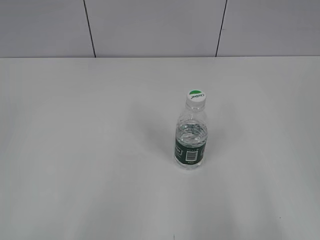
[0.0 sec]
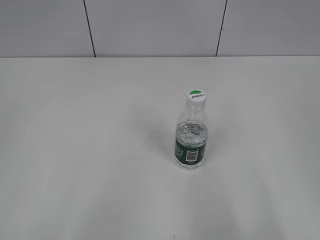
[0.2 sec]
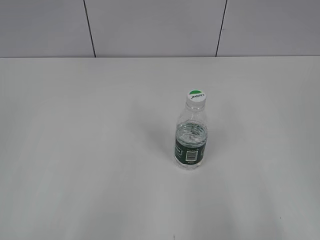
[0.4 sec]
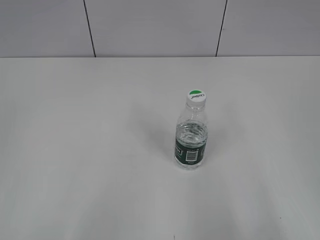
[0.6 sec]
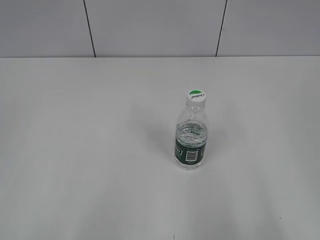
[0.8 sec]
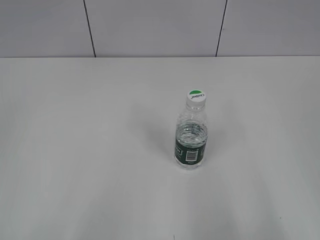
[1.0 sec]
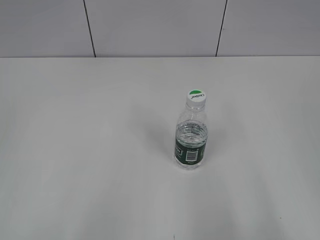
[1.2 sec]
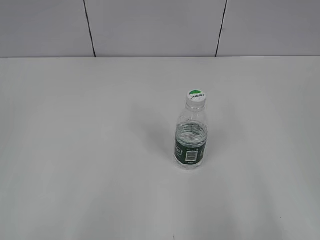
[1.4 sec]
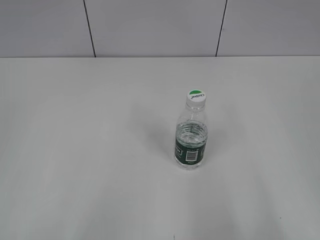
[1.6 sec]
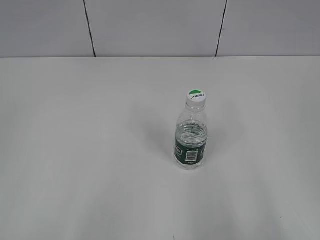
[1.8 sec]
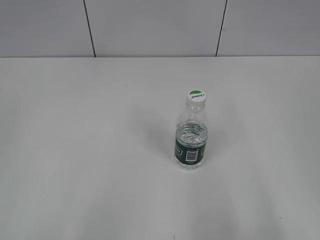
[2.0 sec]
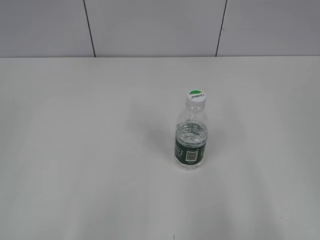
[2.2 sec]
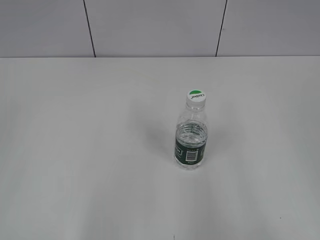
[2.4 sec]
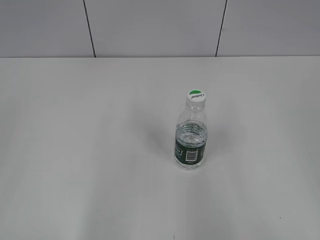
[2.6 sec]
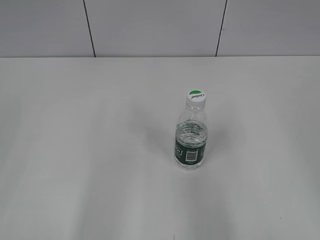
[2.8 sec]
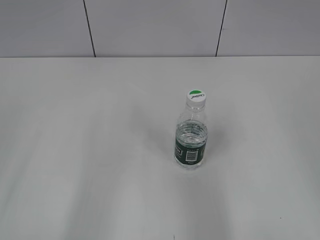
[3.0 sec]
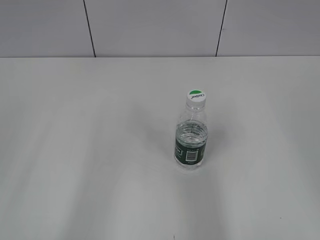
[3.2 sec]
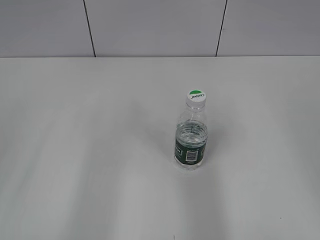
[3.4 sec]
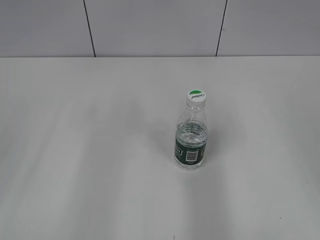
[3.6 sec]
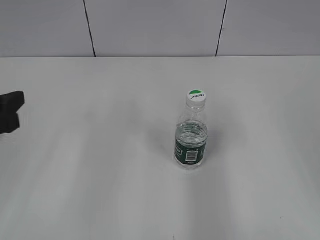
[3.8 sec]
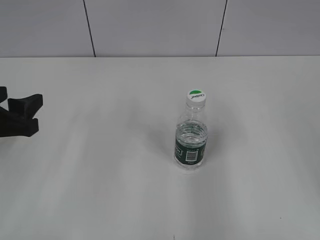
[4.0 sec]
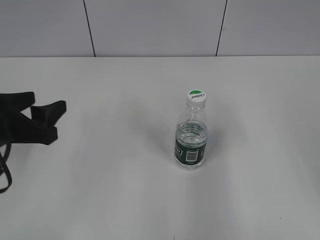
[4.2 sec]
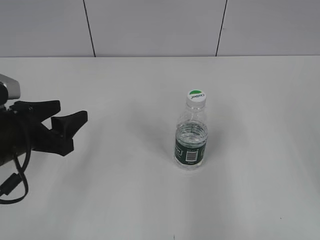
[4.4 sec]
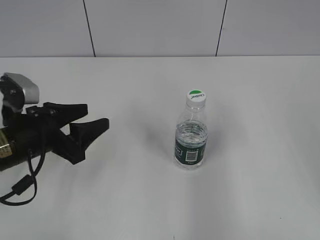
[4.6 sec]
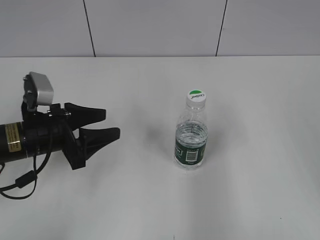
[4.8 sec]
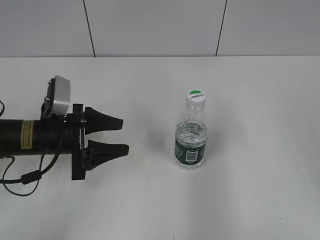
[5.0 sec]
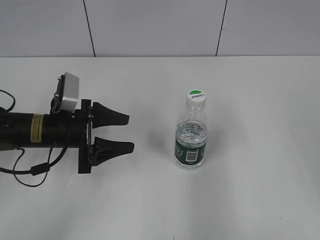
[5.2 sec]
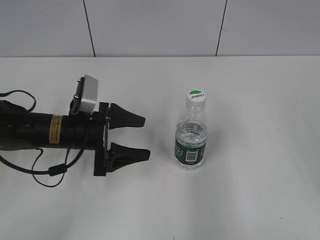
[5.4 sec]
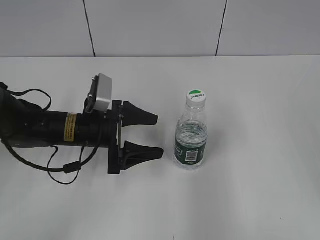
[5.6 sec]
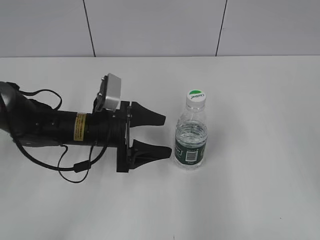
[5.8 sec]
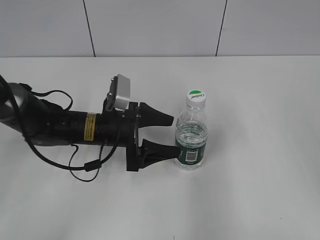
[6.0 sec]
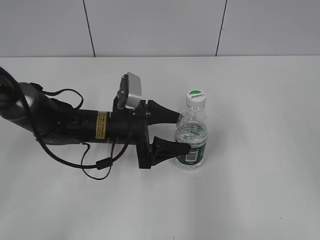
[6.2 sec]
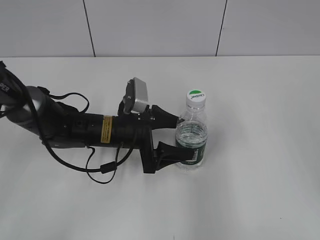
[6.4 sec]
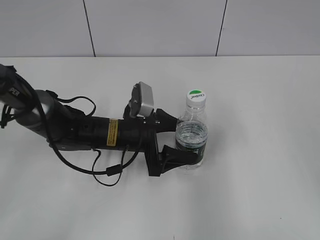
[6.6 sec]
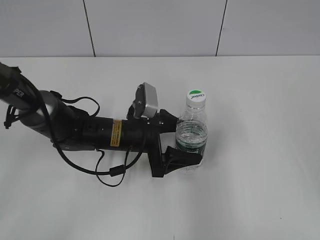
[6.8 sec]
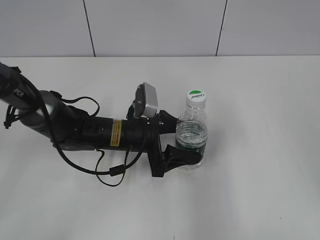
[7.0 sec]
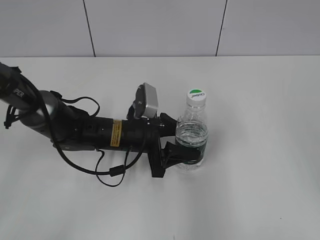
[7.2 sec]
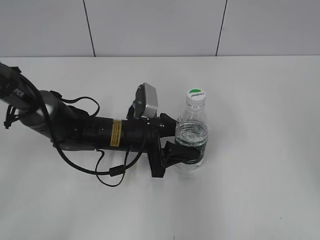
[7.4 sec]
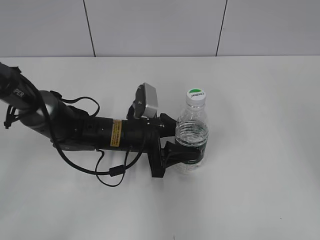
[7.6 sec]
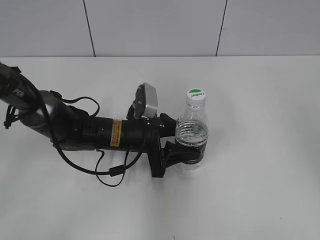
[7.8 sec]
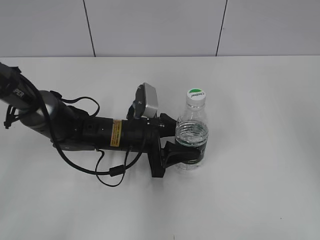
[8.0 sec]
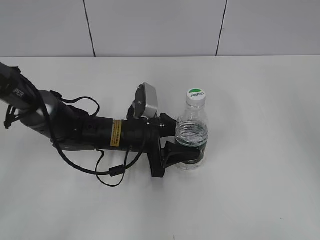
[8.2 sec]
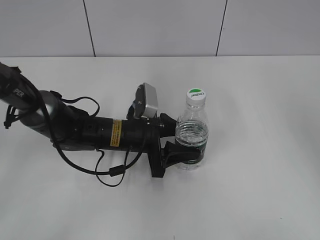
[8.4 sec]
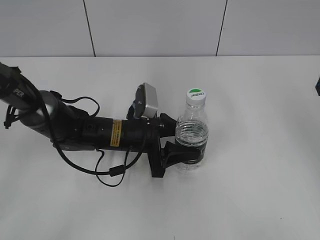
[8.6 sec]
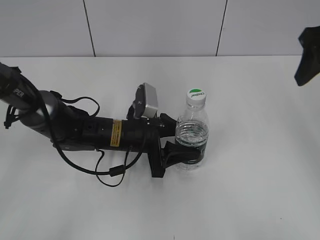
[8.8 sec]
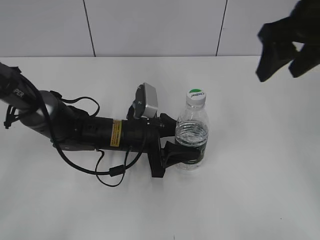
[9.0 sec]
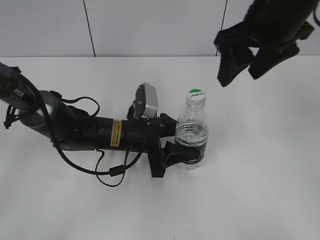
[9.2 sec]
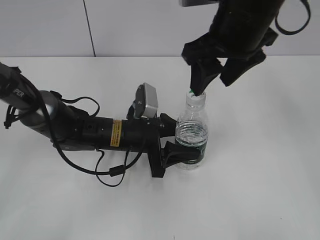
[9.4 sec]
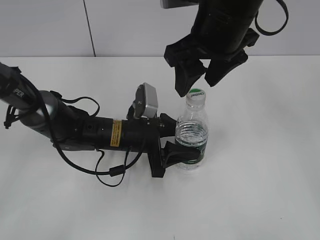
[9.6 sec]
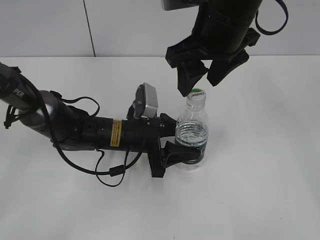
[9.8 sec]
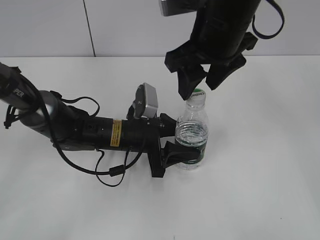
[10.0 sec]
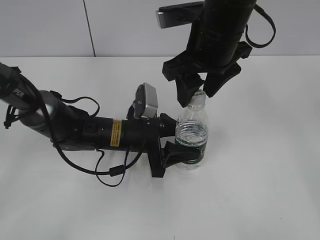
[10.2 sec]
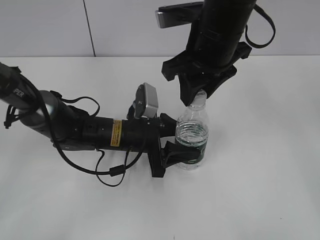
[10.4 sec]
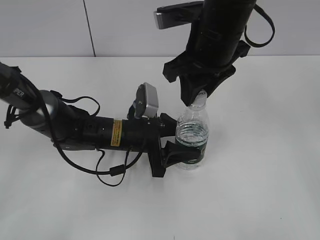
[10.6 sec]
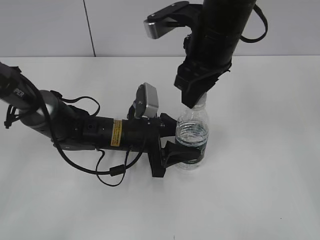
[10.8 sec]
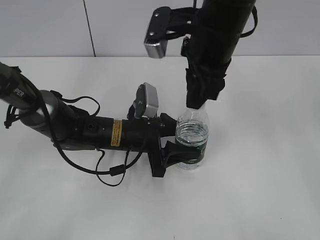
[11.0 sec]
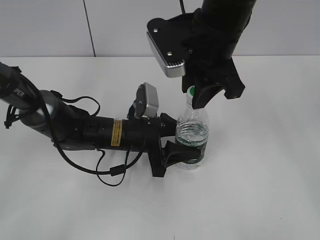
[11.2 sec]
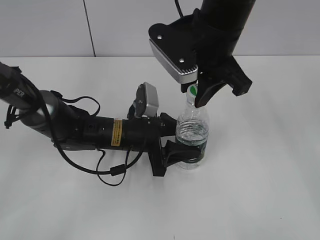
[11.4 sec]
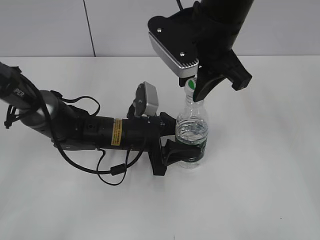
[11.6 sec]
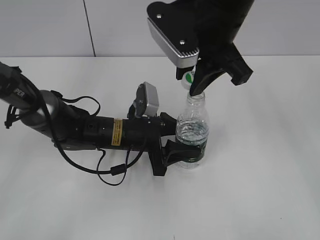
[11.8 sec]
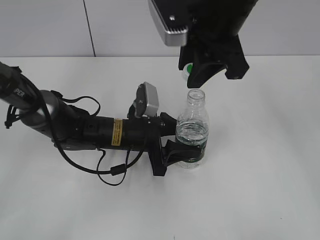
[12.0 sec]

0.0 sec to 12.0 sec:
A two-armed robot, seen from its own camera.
Step, 0.0 sec to 7.4 sec: Grasp the bottle and move it to the center of the table with the left gripper.
Step, 7.8 sec to 11.8 sec: Unscrew the bottle cap with the right gripper while holding the bottle with the left gripper.
3.0 sec to 4.4 sec: The left gripper heads forward, downward and to the right, covering some 20 cm.
4.4 sec to 6.0 sec: The left gripper goes some 15 cm to the right, forward and downward, and opens.
6.0 sec to 7.6 sec: The left gripper closes. Meanwhile the right gripper ends up about 5 cm from where it was.
7.6 sec to 9.0 sec: The right gripper heads forward and to the left, covering roughly 15 cm.
9.0 sec to 10.4 sec: The right gripper shifts roughly 15 cm to the left, and closes.

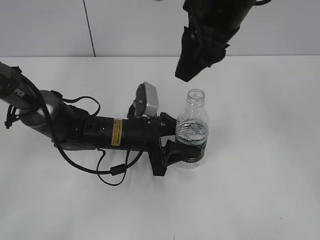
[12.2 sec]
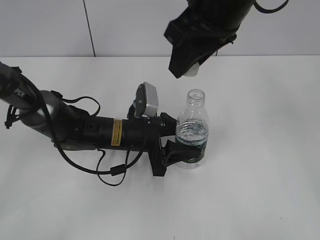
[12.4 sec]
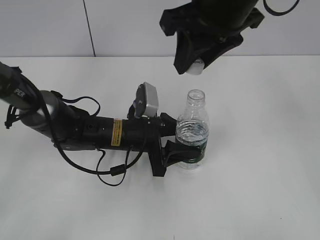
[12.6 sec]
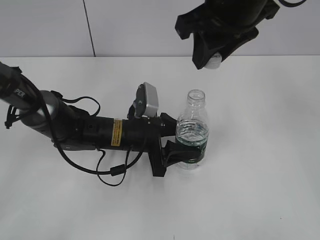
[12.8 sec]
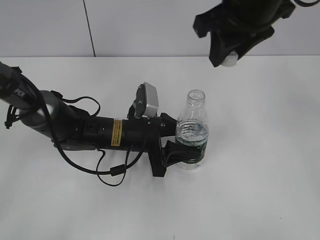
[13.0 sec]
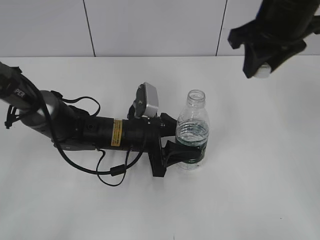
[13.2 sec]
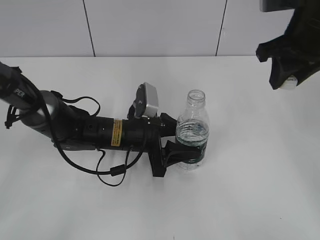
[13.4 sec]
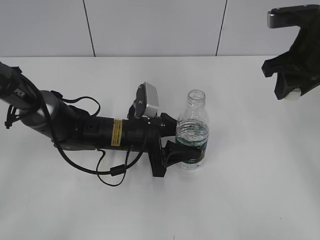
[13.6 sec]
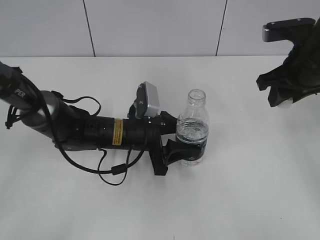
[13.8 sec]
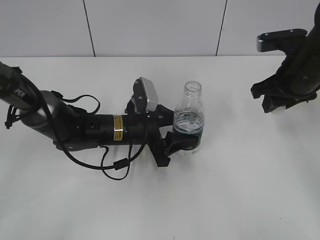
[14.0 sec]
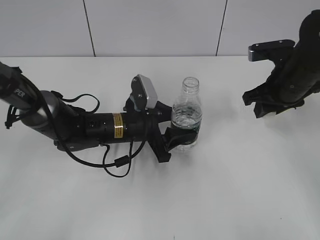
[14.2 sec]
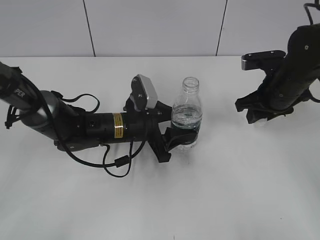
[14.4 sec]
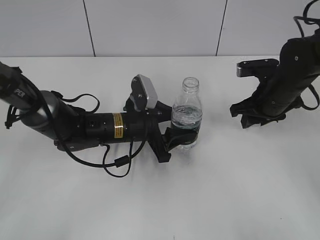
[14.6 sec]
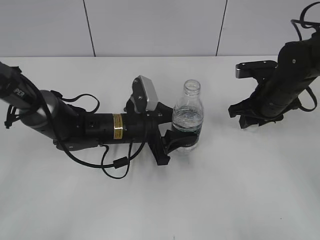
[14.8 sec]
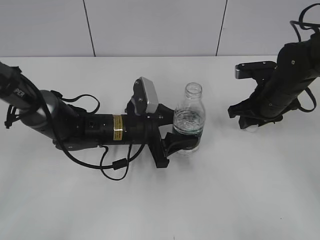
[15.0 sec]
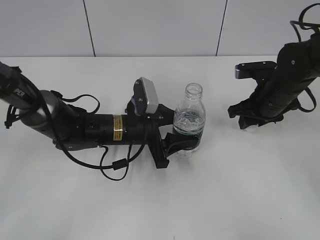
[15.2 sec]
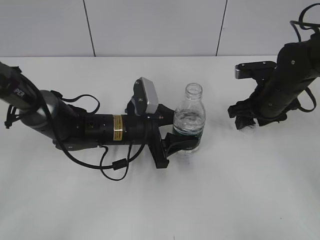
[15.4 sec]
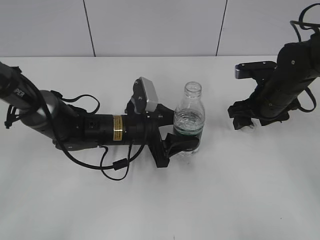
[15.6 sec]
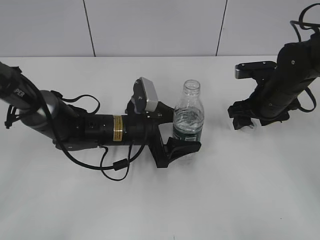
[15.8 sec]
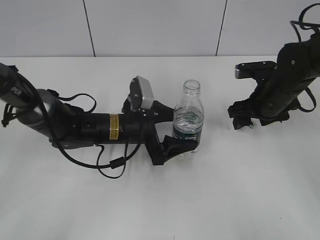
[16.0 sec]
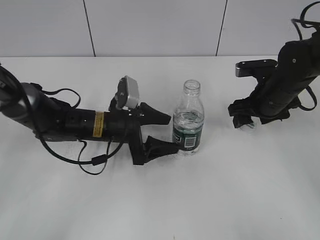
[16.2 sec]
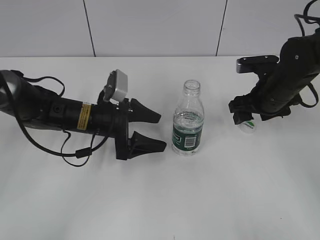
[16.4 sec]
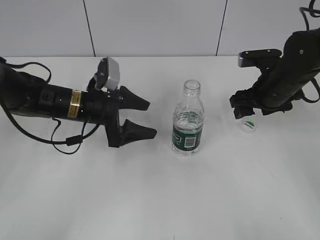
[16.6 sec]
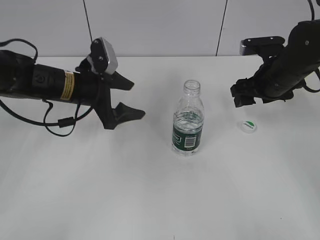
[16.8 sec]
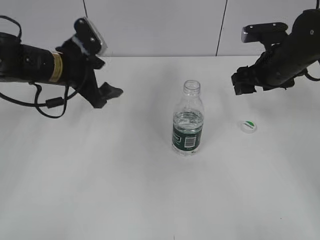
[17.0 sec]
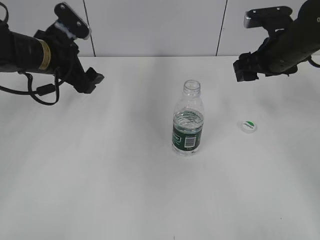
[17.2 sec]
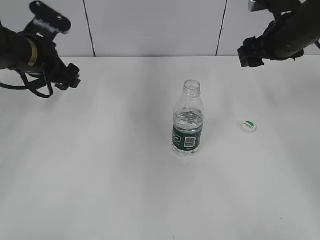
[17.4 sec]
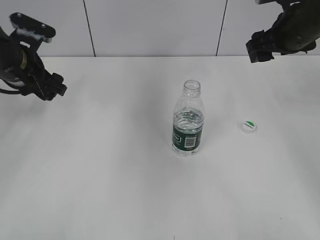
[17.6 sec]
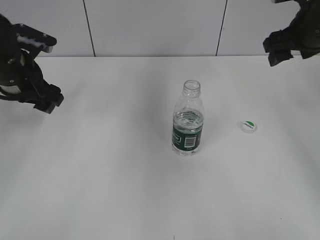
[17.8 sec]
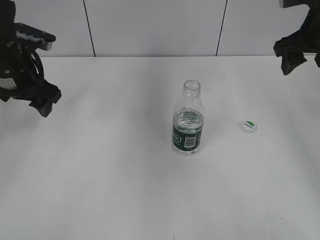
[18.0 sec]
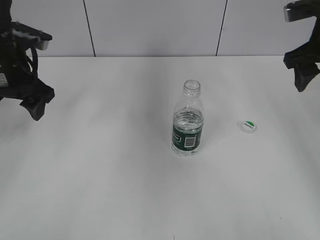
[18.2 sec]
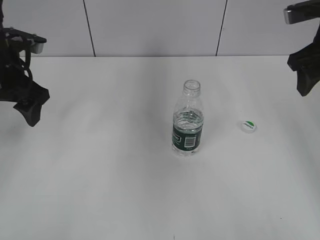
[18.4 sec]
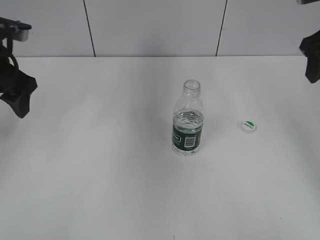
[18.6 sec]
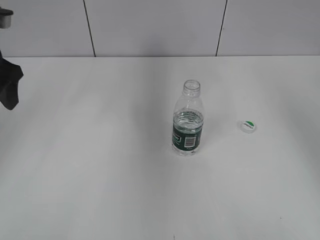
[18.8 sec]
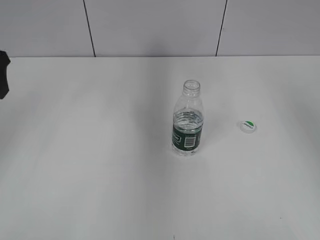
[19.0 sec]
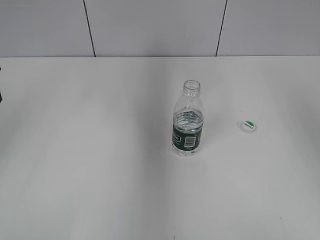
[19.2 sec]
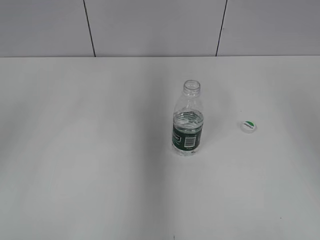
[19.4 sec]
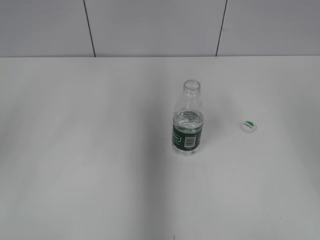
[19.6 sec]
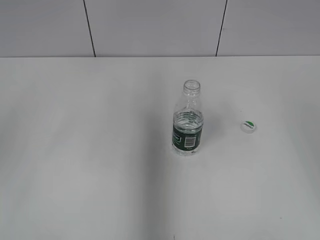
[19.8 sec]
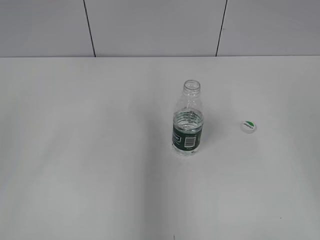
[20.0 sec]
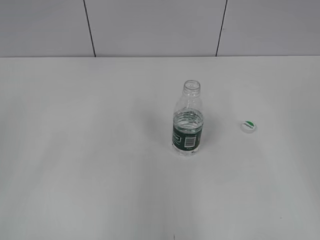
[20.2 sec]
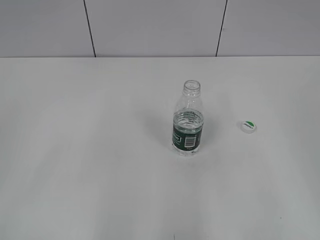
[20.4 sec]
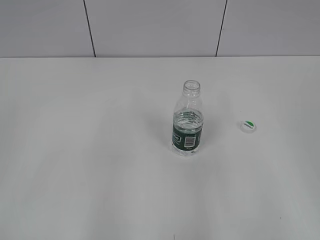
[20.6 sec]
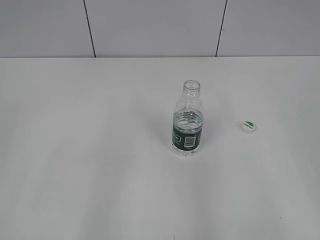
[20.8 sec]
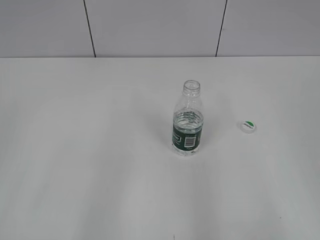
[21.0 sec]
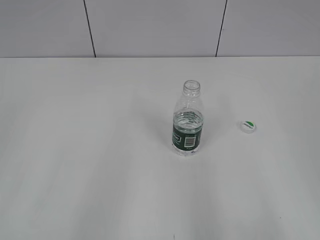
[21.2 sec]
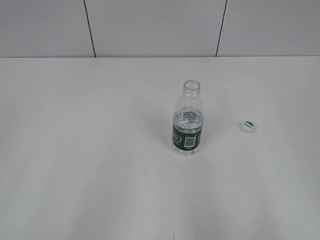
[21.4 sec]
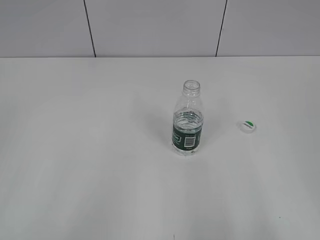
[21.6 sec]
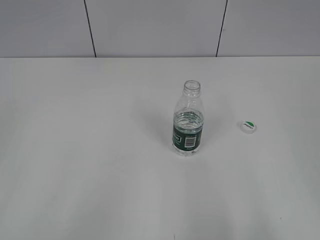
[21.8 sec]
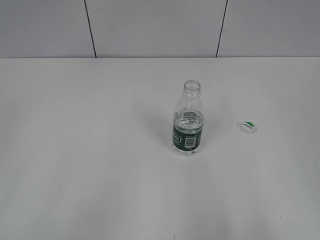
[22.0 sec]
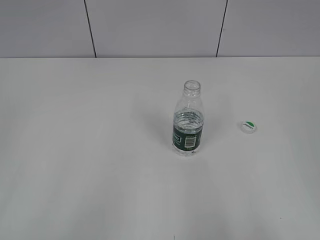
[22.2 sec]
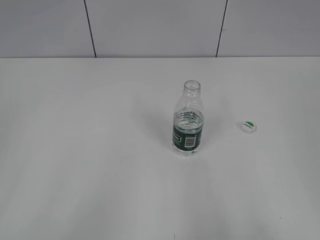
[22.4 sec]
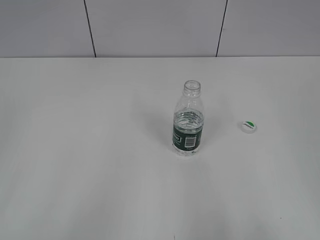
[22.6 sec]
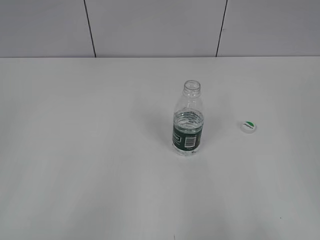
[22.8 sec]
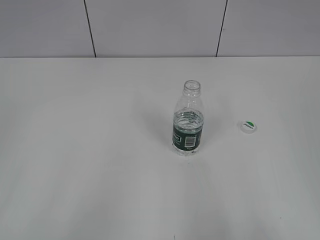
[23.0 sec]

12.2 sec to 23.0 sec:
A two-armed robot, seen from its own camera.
Step, 12.2 sec to 16.0 sec: Place the bottle cap on the table with the right gripper.
Step, 16.2 sec to 16.6 sec: Place the bottle on the table with the left gripper.
12.2 sec to 13.8 sec: The right gripper travels to the right and downward by about 20 cm.
13.8 sec to 15.2 sec: The right gripper is displaced downward by some 10 cm.
15.2 sec to 16.8 sec: The left gripper shifts about 10 cm to the left and upward, and opens its fingers. The right gripper opens up.
16.8 sec to 18.4 sec: The left gripper goes about 15 cm to the left and upward. The right gripper heads upward, covering about 10 cm.
18.4 sec to 20.0 sec: Both grippers travel together backward, approximately 20 cm.
20.0 sec to 21.4 sec: The grippers both shift backward by approximately 15 cm.
